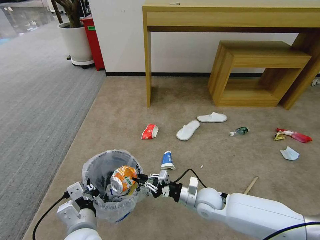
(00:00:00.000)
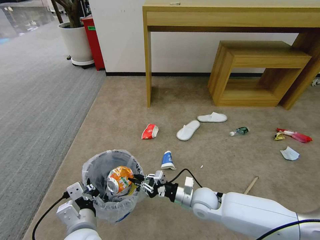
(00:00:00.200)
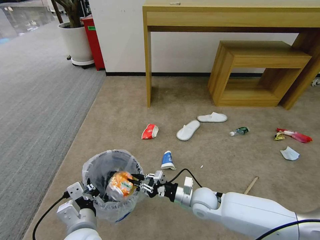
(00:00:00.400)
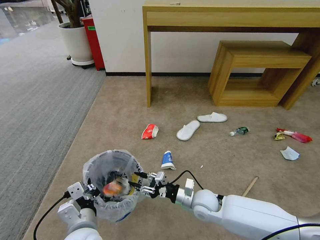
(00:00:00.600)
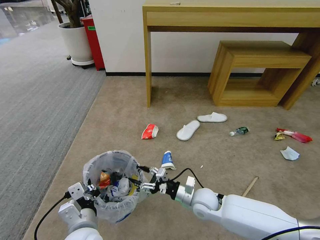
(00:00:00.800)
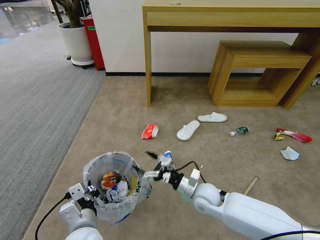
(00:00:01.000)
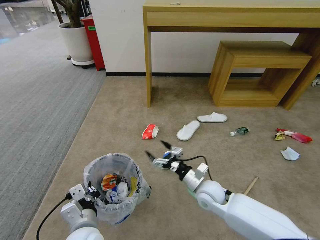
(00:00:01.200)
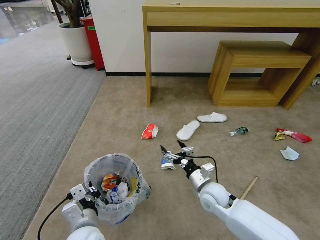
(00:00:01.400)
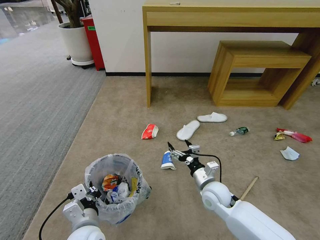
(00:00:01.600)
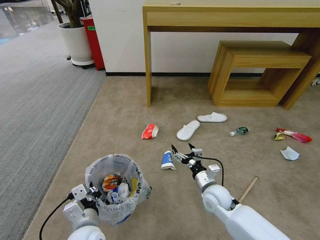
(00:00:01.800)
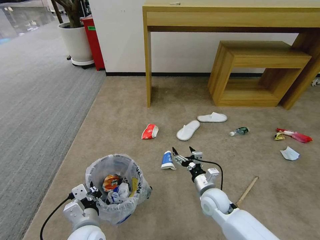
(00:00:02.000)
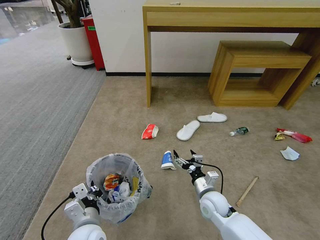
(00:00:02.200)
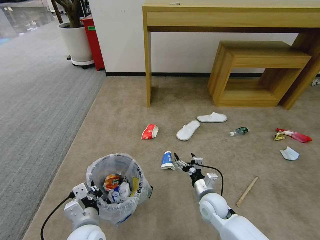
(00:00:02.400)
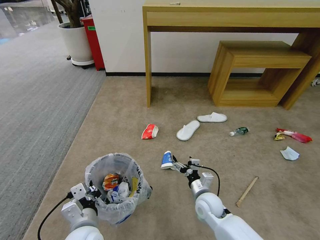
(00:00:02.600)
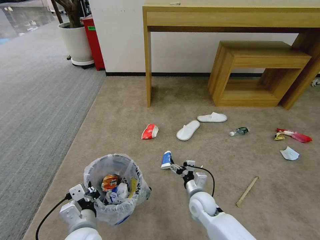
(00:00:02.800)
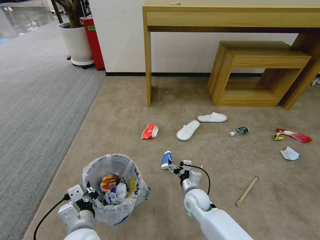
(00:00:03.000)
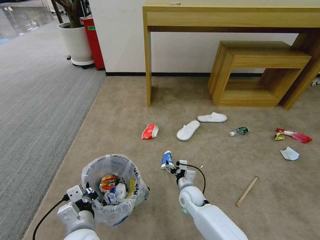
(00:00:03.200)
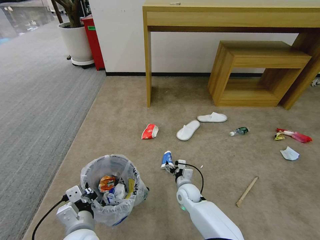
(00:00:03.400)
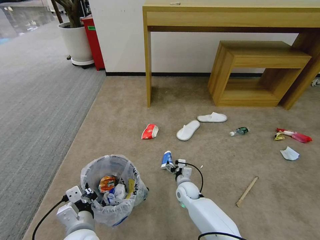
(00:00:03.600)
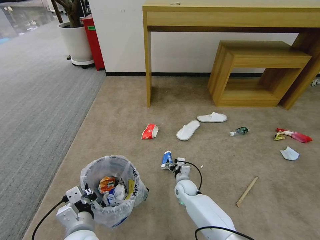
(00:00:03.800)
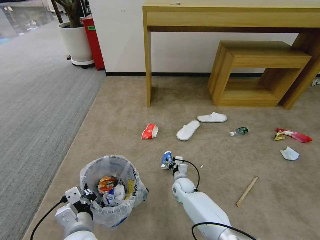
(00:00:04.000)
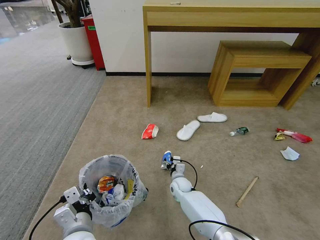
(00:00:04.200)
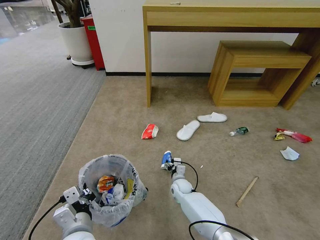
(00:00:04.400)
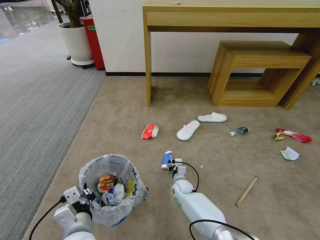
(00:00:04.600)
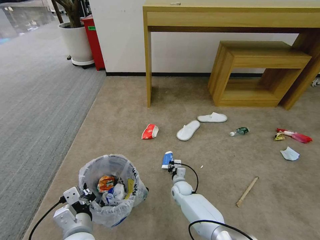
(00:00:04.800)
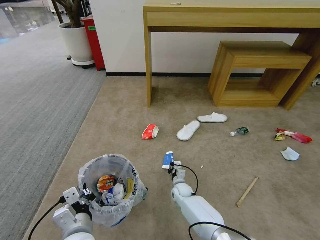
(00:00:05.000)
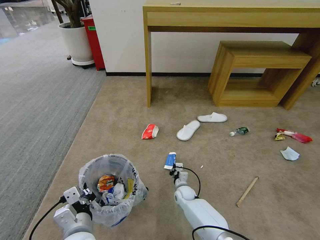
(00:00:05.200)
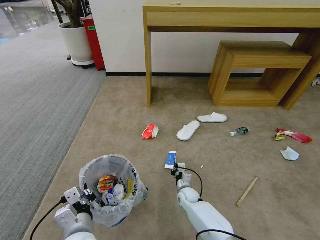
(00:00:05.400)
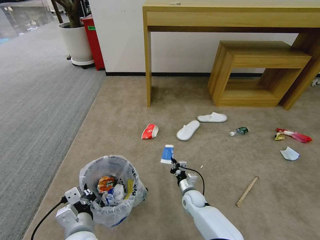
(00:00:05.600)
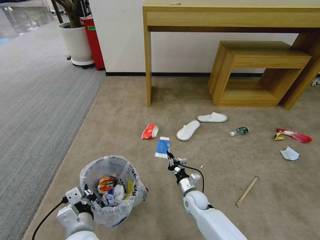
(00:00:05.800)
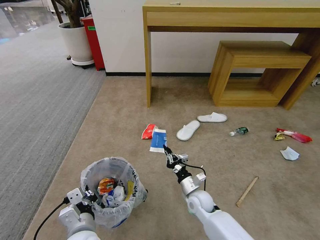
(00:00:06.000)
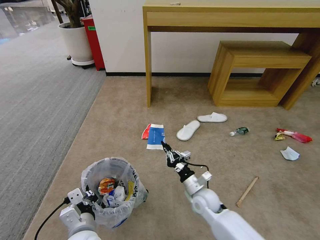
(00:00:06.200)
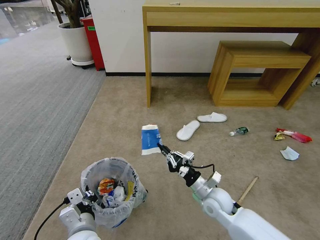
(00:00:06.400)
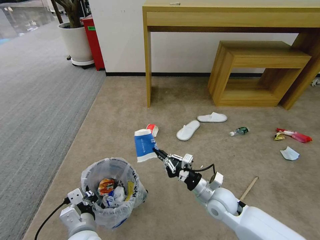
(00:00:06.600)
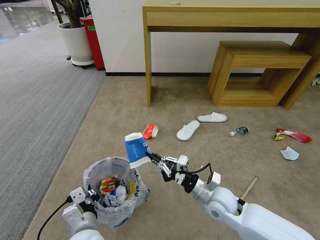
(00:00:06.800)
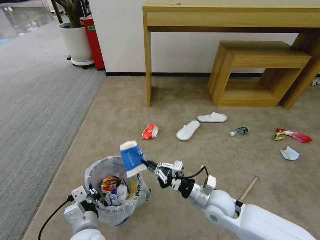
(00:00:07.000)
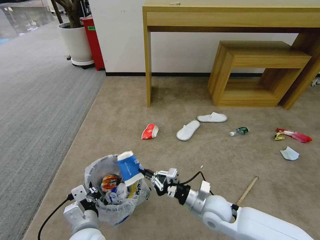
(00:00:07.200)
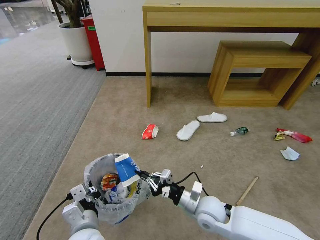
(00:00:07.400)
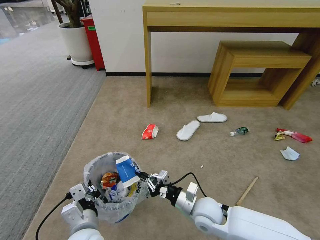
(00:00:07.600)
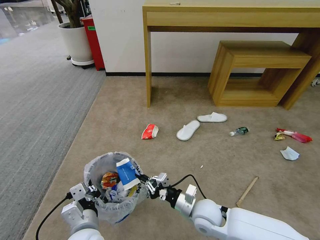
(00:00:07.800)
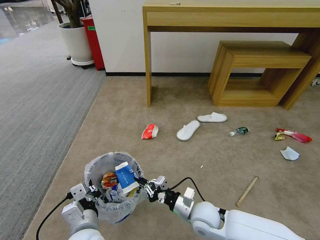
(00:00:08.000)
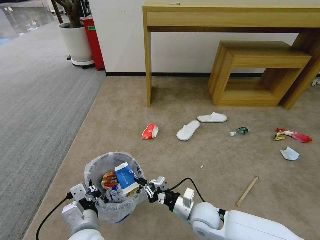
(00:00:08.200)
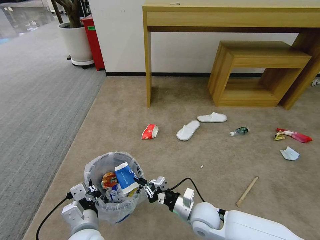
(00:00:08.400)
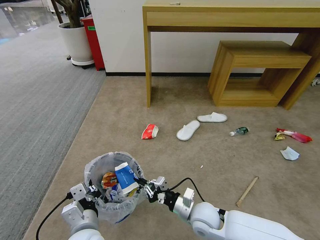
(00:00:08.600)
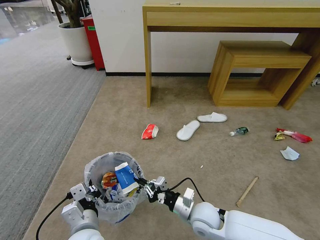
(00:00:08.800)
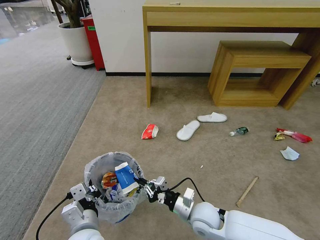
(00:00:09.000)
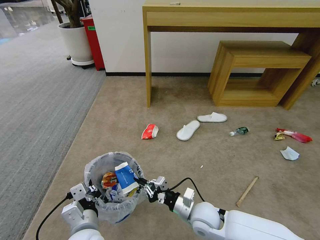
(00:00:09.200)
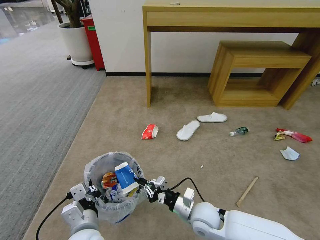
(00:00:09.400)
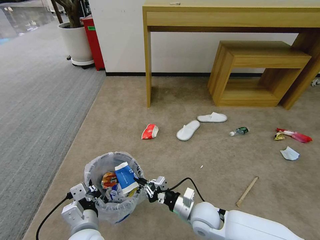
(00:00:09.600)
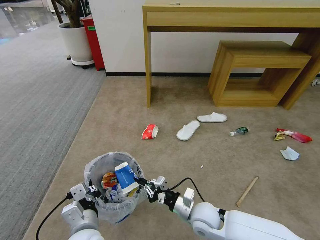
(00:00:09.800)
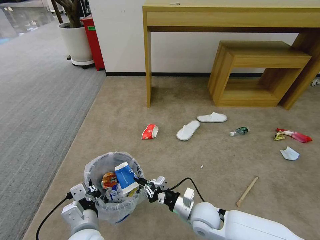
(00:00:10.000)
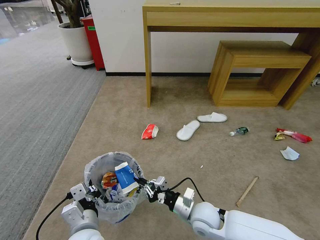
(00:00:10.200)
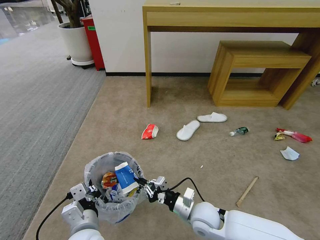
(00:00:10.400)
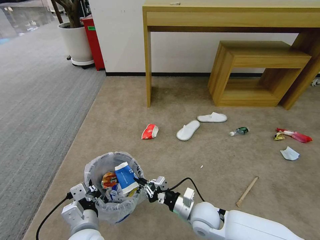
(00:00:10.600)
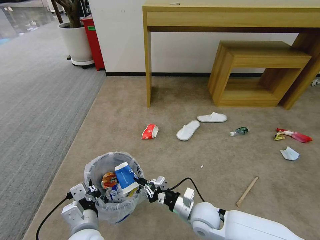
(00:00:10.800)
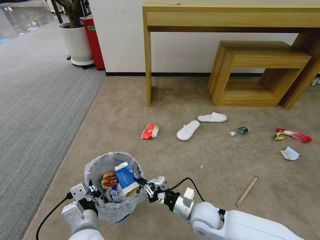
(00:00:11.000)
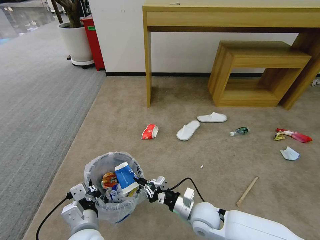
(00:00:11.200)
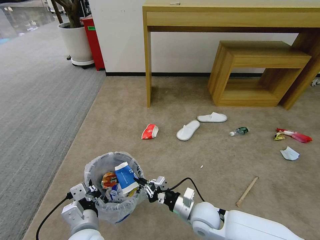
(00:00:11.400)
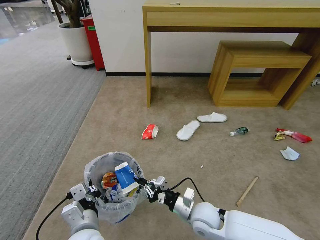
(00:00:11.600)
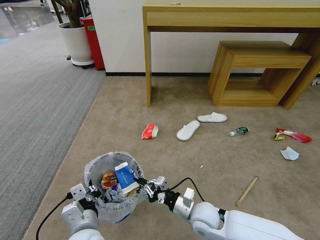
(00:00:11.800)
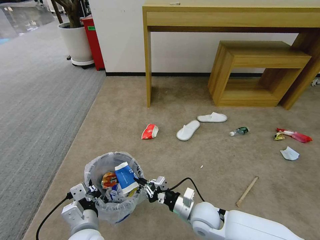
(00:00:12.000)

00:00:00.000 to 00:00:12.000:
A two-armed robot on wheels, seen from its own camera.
Task of the whole recording: Pick up the trash bin and place the garbage on the floor into it.
00:00:00.000 to 00:00:01.600: The right gripper opens its fingers.
00:00:01.600 to 00:00:03.000: The right gripper goes roughly 10 cm downward and to the left.
00:00:03.000 to 00:00:04.400: The right gripper heads forward and downward, covering approximately 10 cm.
00:00:04.400 to 00:00:06.000: The right gripper is displaced backward, upward and to the right by roughly 15 cm, and closes up.
00:00:06.000 to 00:00:07.600: The right gripper moves upward and backward, approximately 10 cm.
00:00:07.600 to 00:00:09.000: There are only small adjustments of the grippers.
00:00:09.000 to 00:00:12.000: Both grippers stay about where they are.

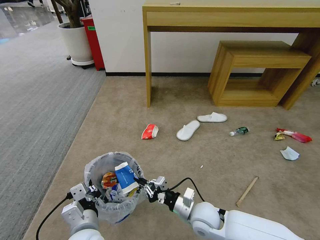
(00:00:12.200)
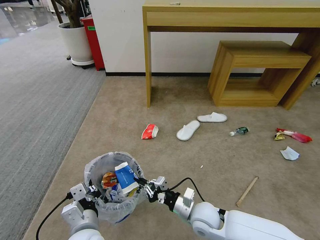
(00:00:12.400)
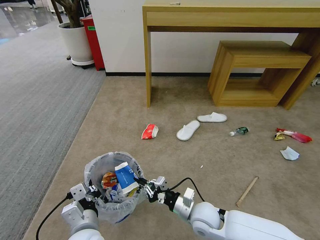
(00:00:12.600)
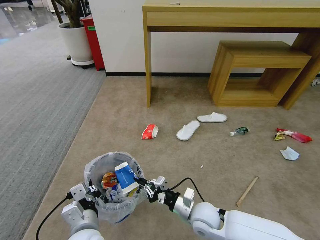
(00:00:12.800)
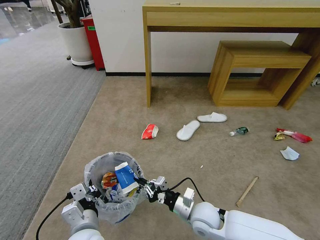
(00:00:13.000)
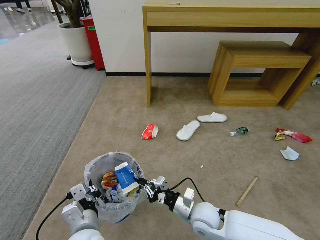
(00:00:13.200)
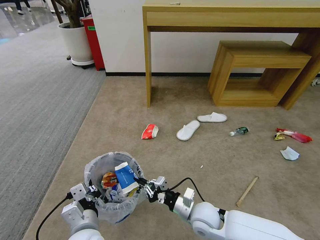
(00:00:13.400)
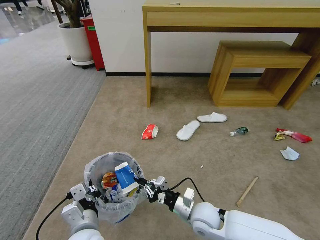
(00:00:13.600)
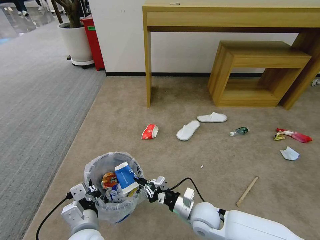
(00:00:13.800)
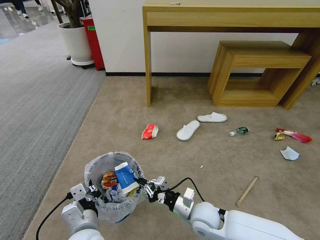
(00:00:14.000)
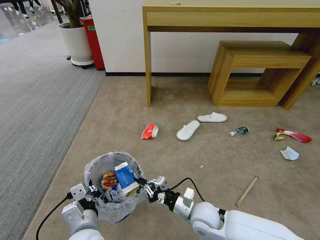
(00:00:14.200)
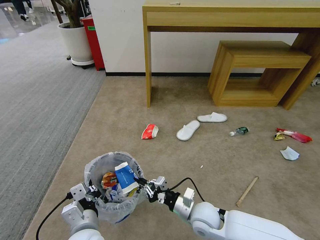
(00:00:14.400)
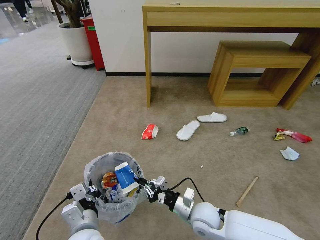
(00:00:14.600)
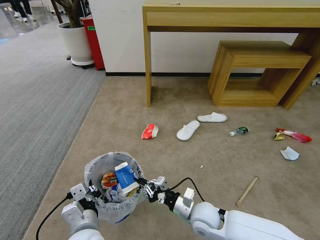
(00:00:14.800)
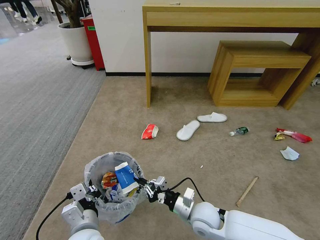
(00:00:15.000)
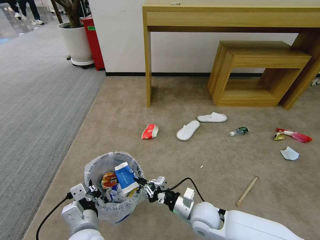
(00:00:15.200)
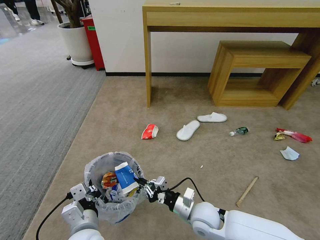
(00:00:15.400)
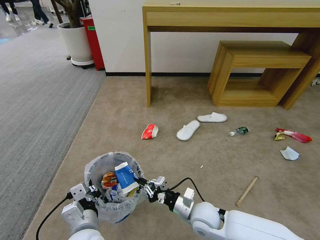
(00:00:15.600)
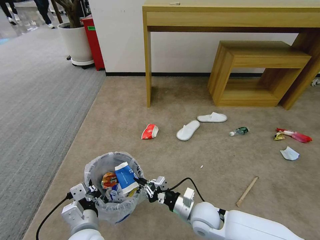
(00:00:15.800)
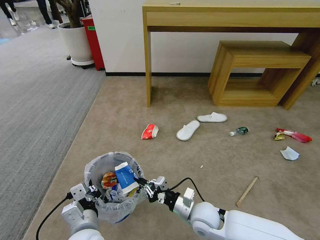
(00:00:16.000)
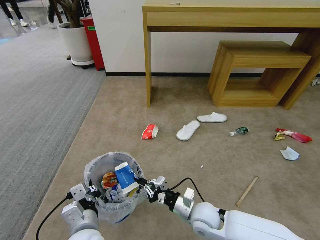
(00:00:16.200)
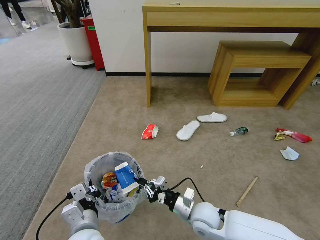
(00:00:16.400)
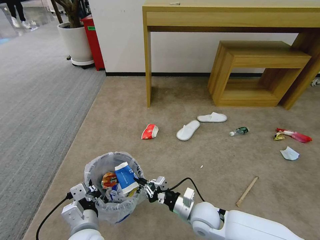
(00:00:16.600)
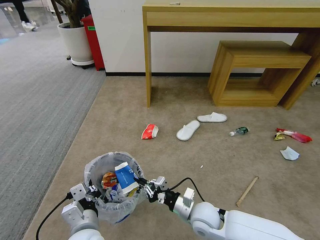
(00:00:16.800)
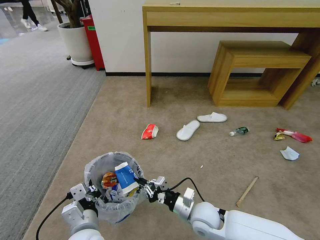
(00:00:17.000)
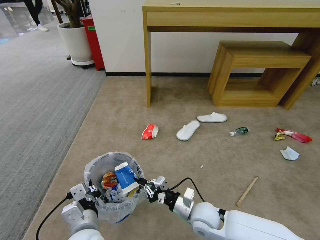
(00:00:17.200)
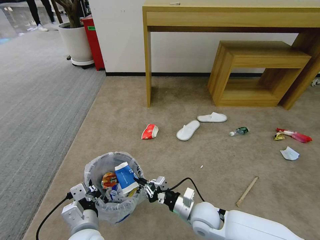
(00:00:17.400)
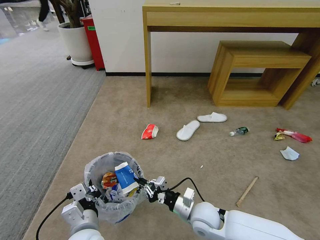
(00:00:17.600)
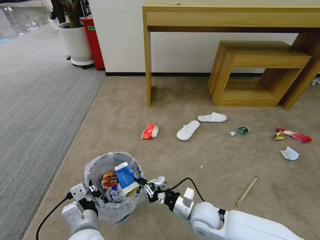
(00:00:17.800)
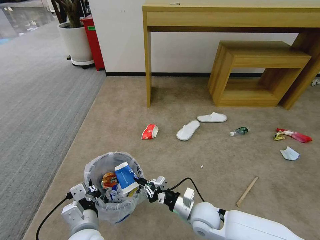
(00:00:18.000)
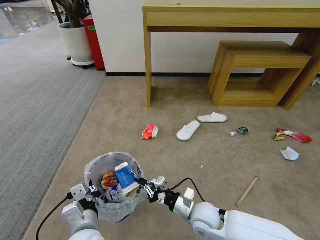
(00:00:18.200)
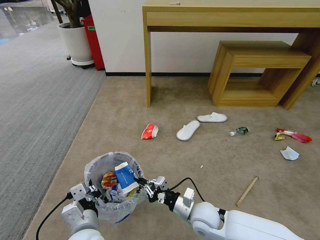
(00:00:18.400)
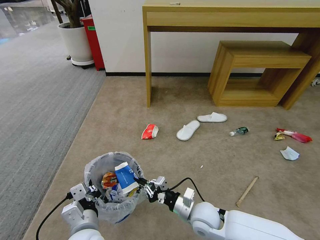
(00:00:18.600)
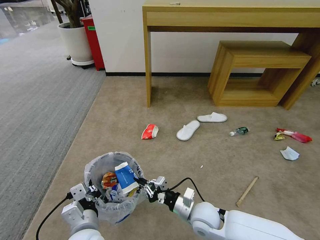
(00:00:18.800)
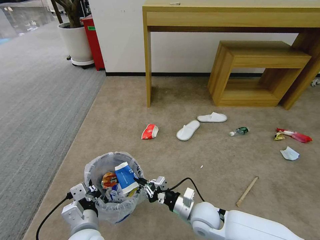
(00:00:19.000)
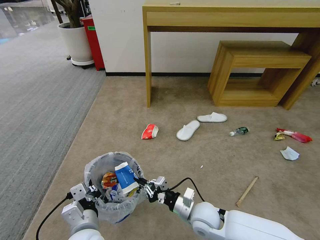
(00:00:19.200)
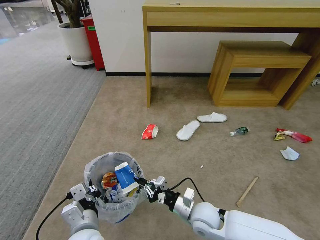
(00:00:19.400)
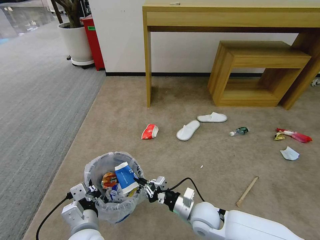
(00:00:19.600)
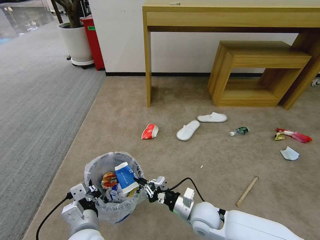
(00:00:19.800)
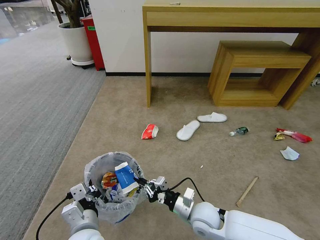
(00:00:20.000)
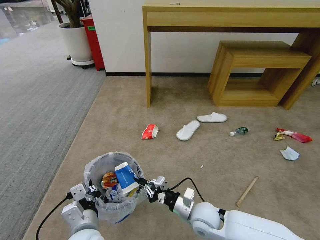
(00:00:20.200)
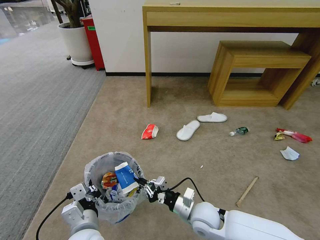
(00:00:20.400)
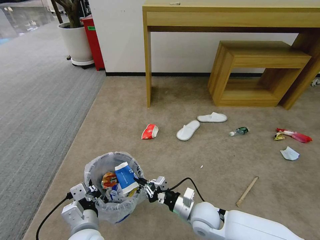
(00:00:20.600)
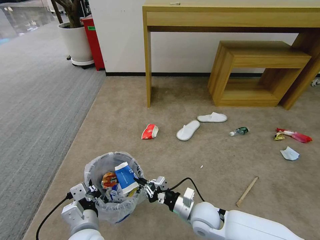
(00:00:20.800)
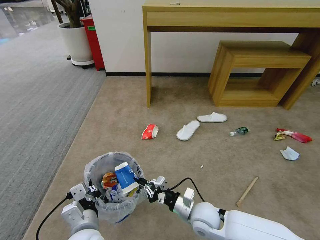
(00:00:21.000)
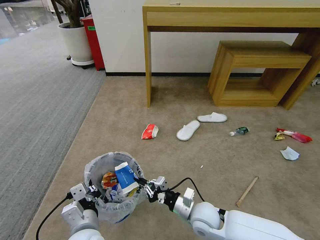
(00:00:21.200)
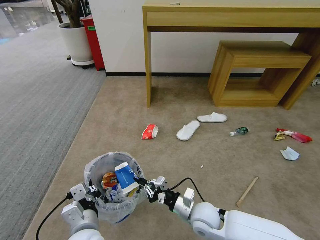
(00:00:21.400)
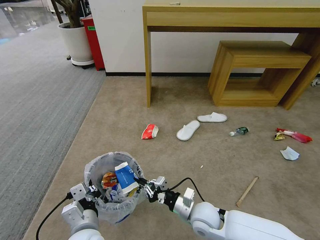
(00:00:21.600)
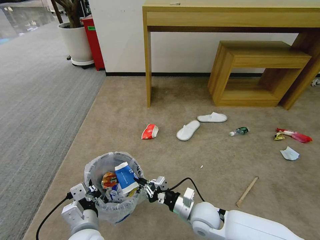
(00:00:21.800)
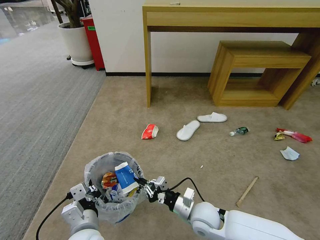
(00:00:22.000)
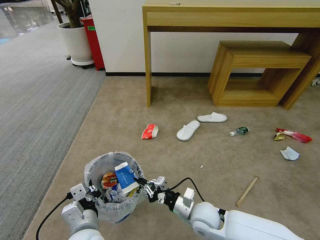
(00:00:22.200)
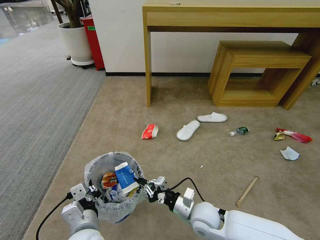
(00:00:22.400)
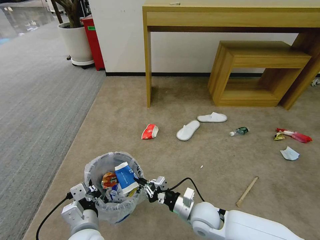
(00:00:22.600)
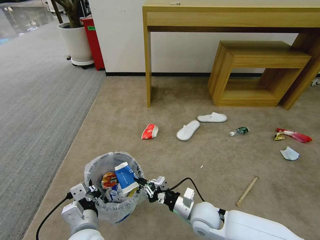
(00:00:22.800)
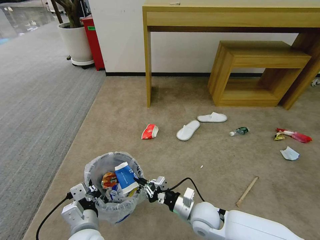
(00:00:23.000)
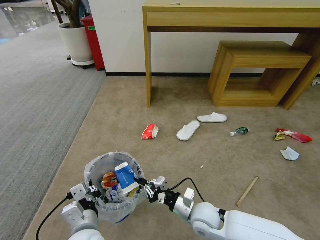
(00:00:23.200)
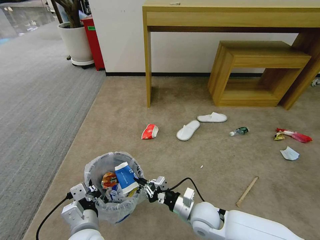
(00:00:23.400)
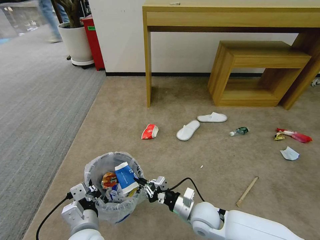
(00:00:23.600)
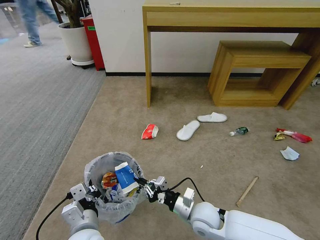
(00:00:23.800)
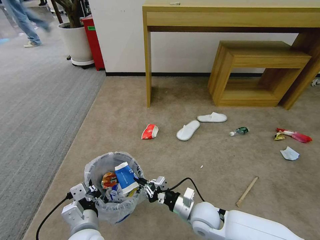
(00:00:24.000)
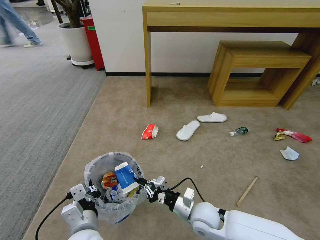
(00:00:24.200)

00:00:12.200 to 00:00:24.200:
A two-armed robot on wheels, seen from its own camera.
Task of the whole recording: Pick up the trash bin and place the garbage on the floor into it.
00:00:12.200 to 00:00:24.200: Neither gripper changes place.
